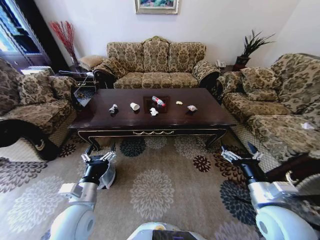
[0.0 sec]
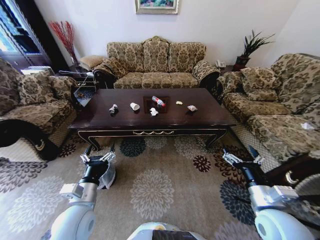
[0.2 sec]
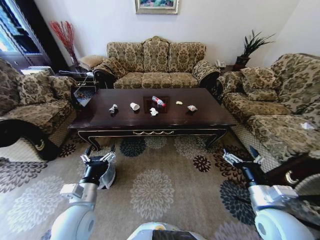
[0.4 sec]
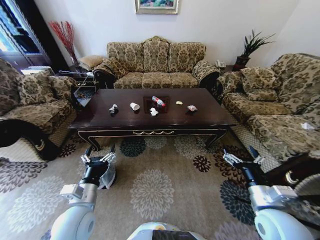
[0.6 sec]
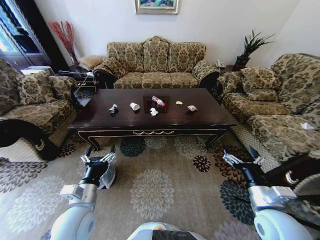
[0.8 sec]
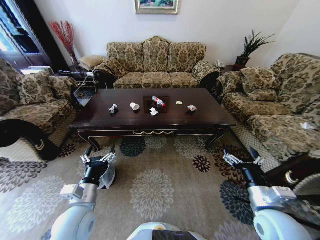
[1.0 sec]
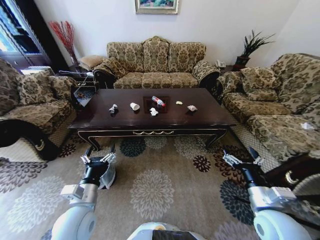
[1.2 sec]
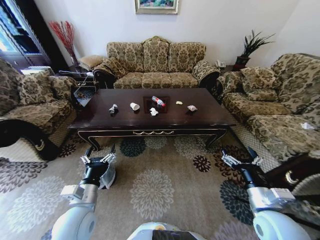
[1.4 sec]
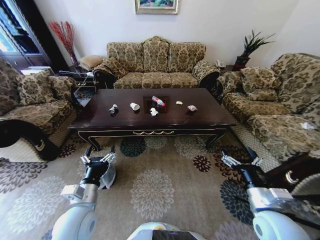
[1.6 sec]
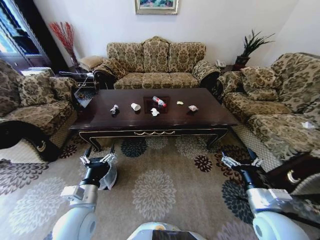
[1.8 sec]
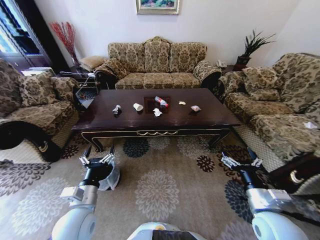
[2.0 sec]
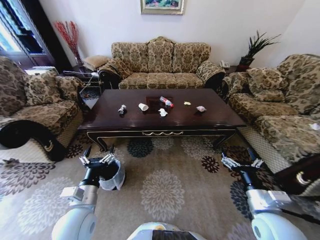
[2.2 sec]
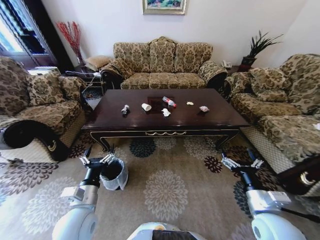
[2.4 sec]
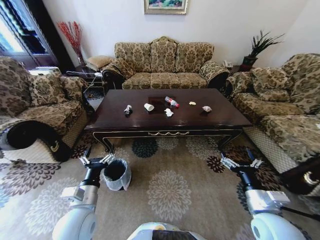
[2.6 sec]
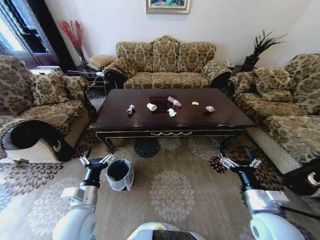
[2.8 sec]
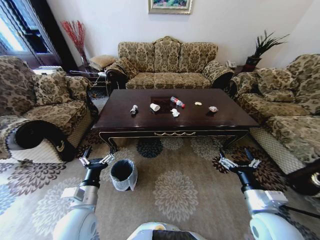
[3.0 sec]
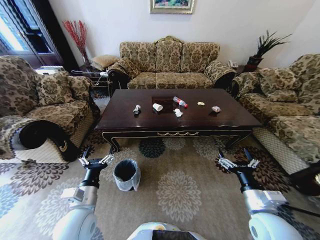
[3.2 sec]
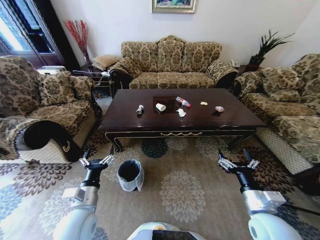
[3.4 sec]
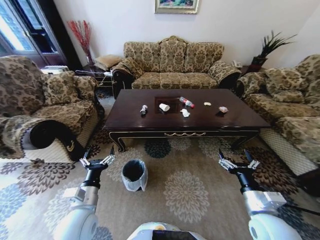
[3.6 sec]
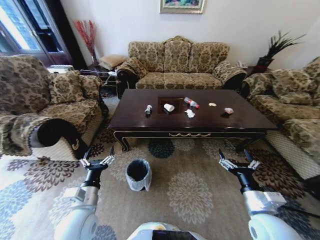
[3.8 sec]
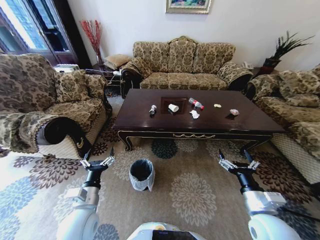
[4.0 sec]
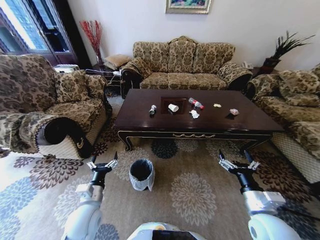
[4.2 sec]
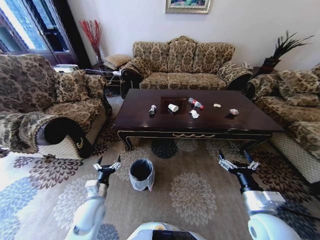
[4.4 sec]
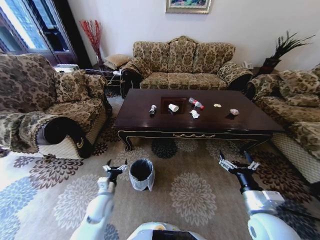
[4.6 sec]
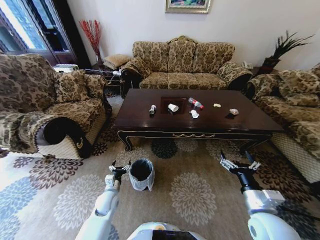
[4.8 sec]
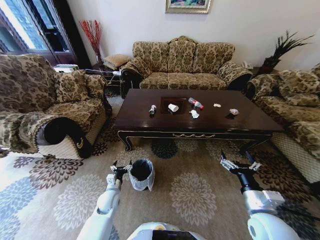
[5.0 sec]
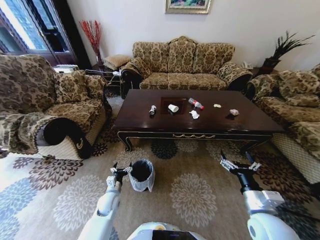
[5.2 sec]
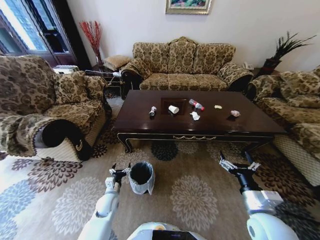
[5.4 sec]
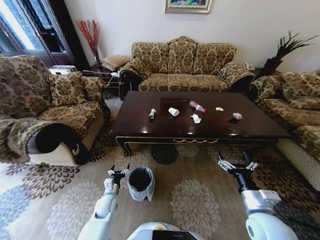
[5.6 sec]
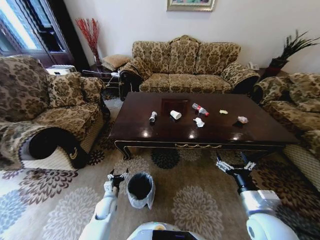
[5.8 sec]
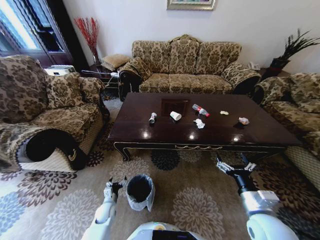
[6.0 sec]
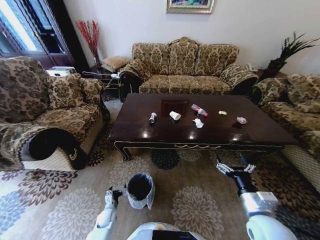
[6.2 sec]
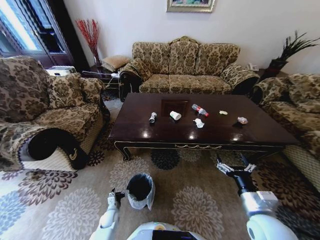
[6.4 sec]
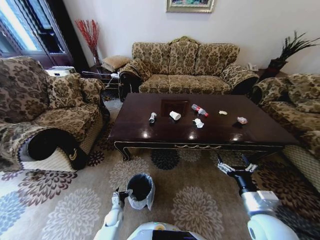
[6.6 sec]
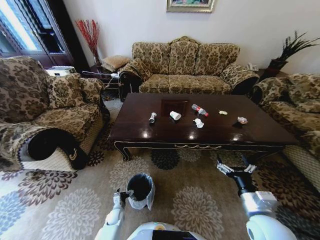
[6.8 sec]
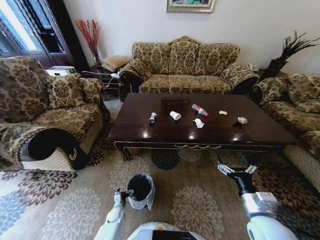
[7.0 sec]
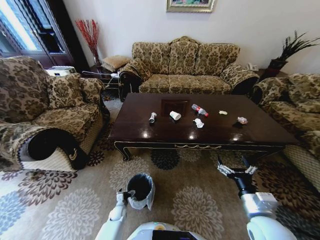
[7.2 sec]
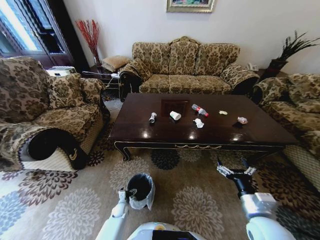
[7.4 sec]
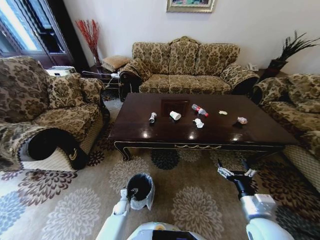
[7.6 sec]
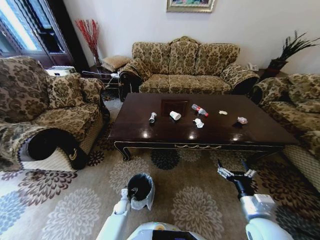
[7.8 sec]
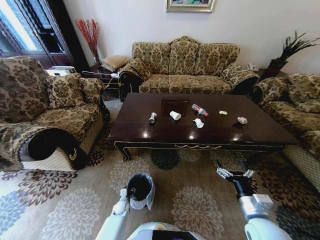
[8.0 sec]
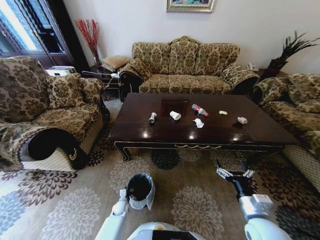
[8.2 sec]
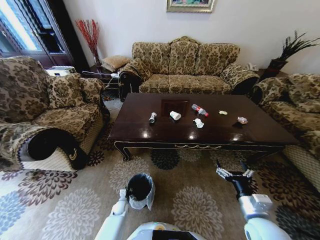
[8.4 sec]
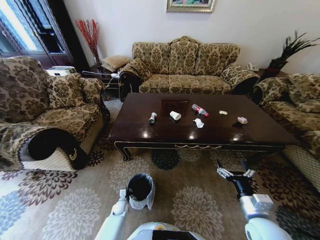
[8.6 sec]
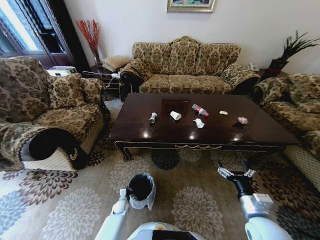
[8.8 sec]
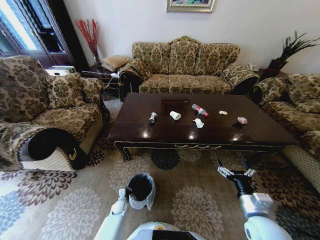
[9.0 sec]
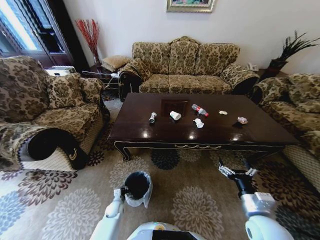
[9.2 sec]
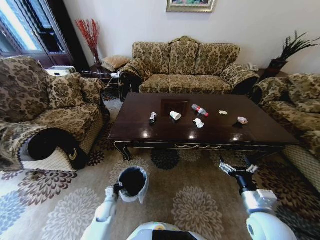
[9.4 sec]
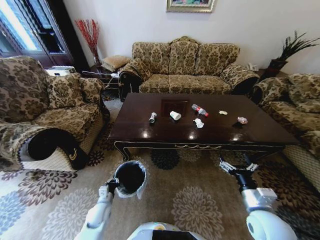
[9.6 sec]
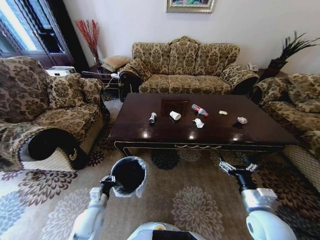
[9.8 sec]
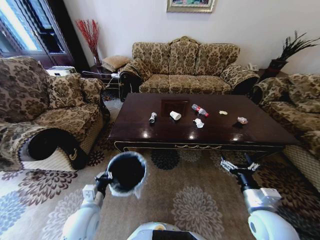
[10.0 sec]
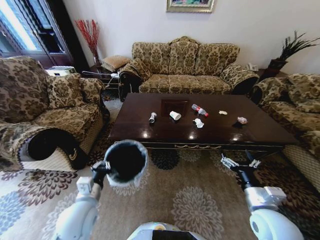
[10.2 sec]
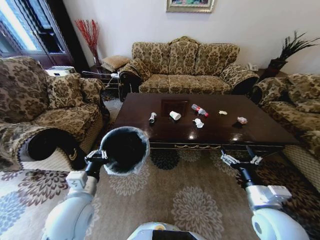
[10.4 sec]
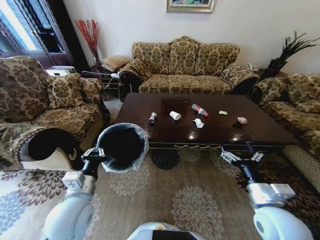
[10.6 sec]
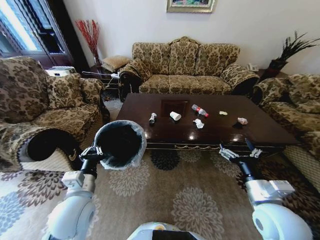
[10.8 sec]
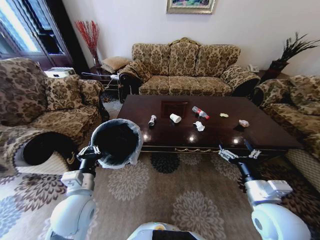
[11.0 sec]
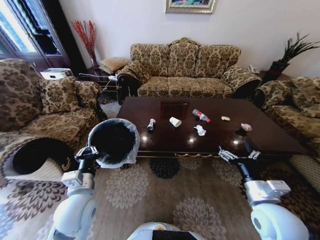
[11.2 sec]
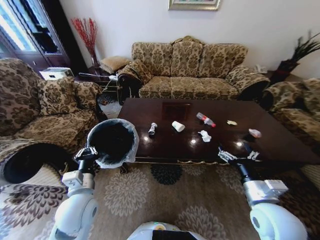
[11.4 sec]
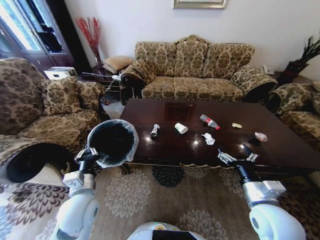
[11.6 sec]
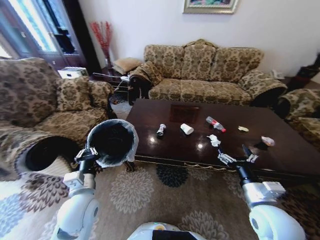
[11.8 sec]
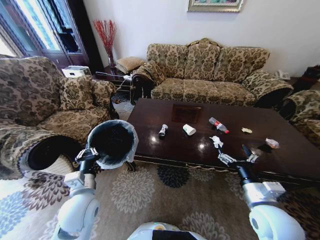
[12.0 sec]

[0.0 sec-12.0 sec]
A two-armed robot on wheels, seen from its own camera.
Task of the whole recording: Move to the front of the table and place the trash on the table into the trash bin.
3.0 sec to 4.4 sec: The left gripper moves downward, about 10 cm.
4.4 sec to 6.0 sec: The left gripper heads downward, covering some 20 cm.
6.0 sec to 7.6 sec: The left gripper heads downward and to the right, covering roughly 10 cm.
7.6 sec to 9.0 sec: The left gripper closes.
9.0 sec to 10.4 sec: The right gripper goes about 5 cm upward; the left gripper travels upward by roughly 40 cm.

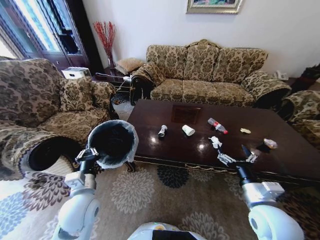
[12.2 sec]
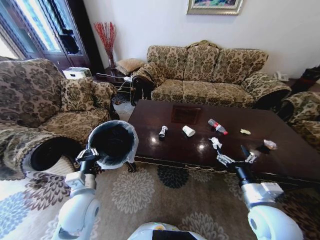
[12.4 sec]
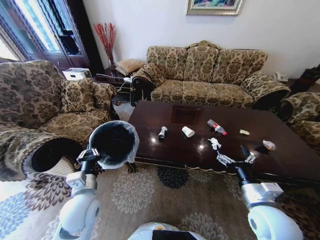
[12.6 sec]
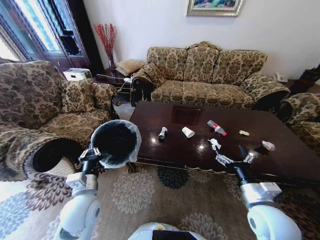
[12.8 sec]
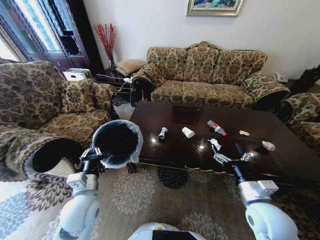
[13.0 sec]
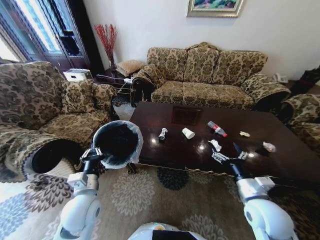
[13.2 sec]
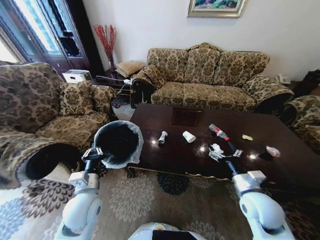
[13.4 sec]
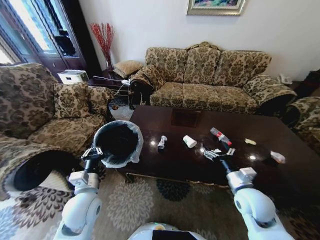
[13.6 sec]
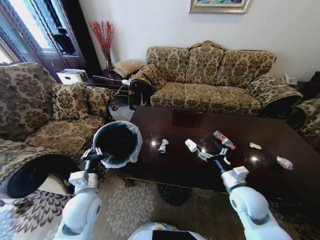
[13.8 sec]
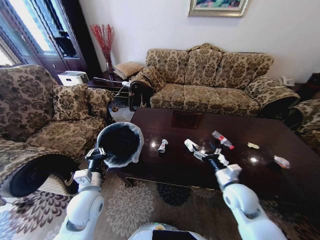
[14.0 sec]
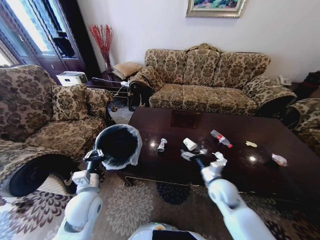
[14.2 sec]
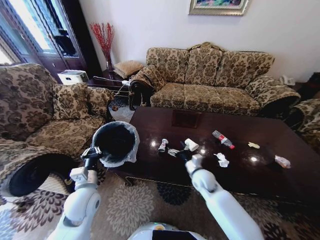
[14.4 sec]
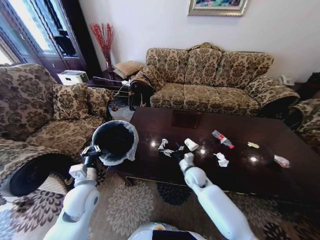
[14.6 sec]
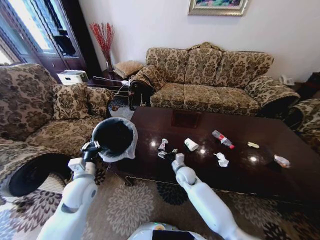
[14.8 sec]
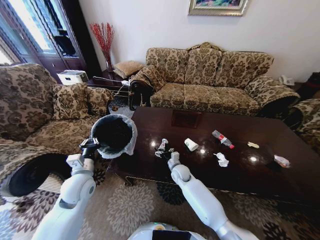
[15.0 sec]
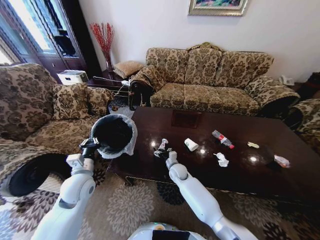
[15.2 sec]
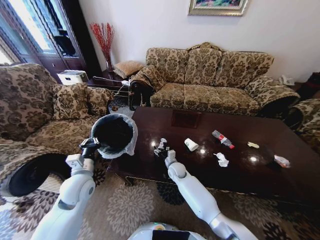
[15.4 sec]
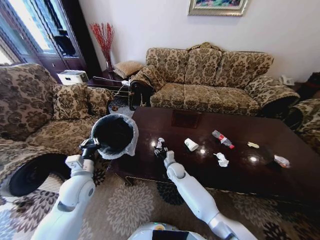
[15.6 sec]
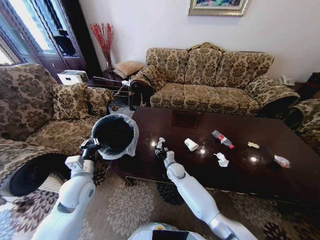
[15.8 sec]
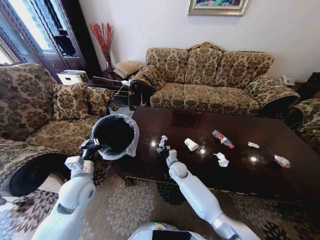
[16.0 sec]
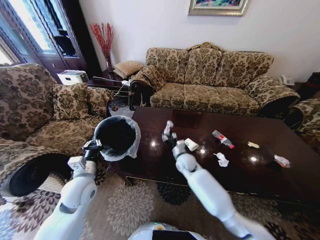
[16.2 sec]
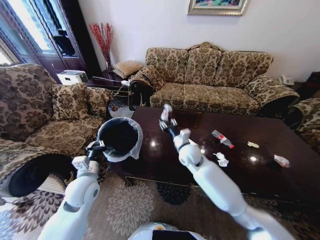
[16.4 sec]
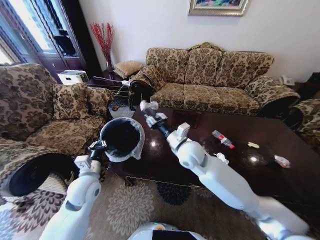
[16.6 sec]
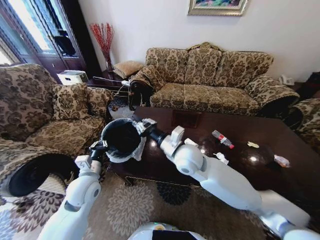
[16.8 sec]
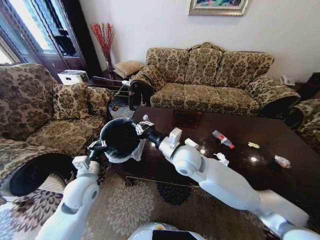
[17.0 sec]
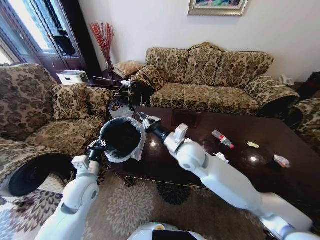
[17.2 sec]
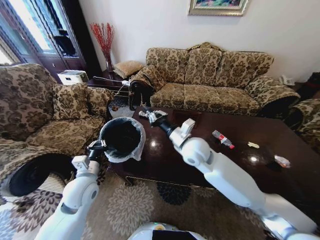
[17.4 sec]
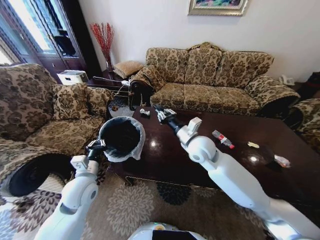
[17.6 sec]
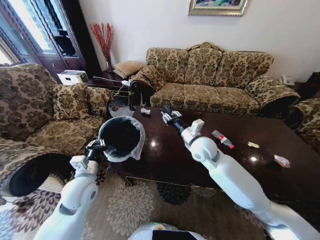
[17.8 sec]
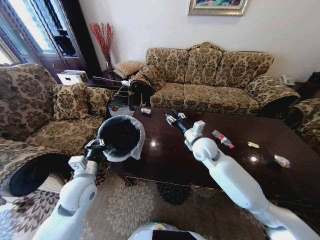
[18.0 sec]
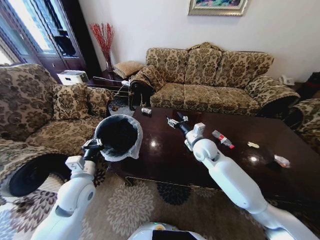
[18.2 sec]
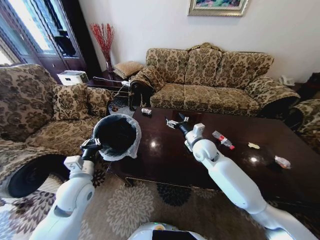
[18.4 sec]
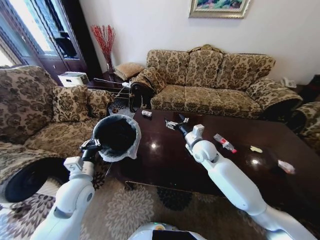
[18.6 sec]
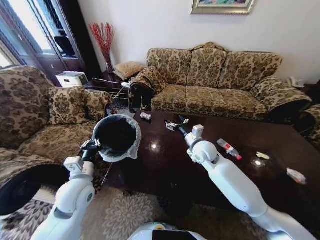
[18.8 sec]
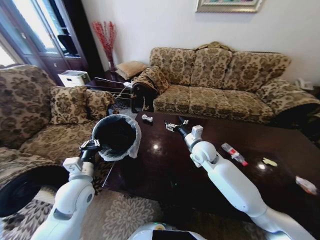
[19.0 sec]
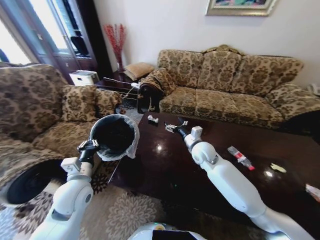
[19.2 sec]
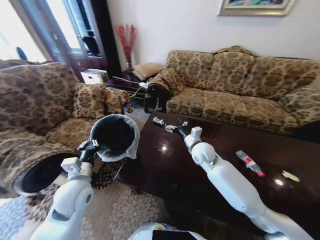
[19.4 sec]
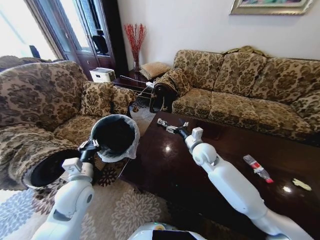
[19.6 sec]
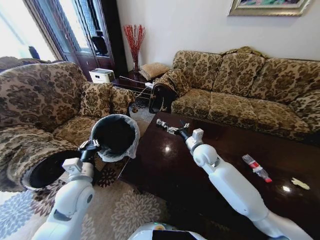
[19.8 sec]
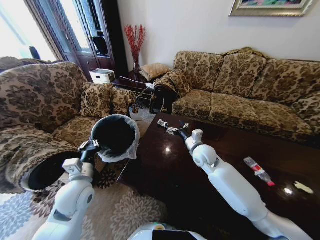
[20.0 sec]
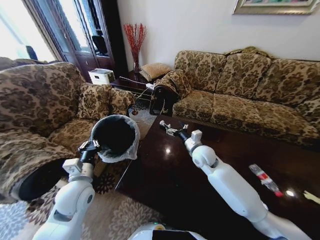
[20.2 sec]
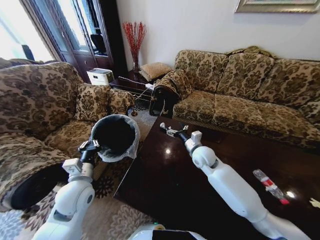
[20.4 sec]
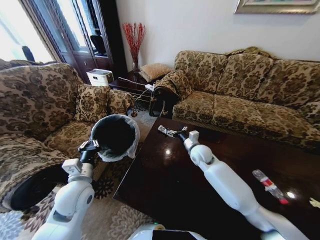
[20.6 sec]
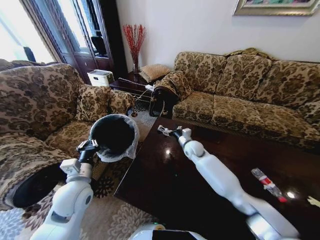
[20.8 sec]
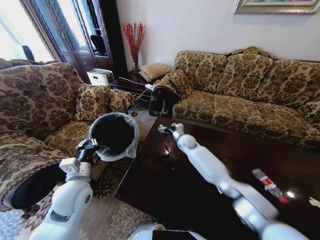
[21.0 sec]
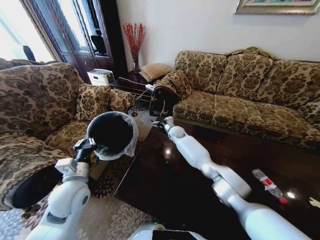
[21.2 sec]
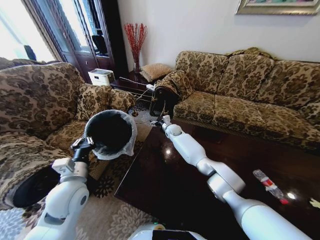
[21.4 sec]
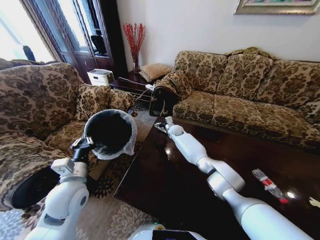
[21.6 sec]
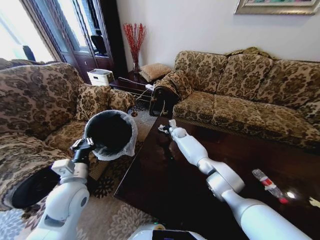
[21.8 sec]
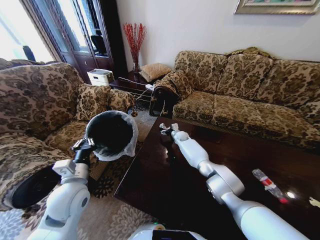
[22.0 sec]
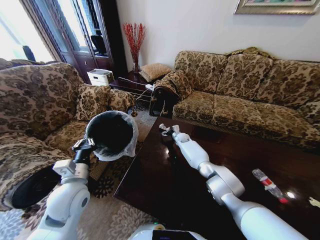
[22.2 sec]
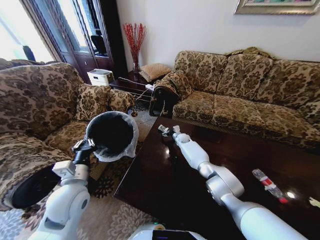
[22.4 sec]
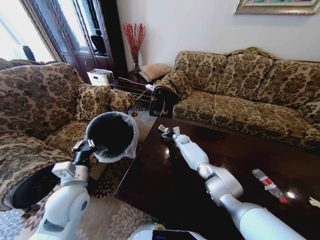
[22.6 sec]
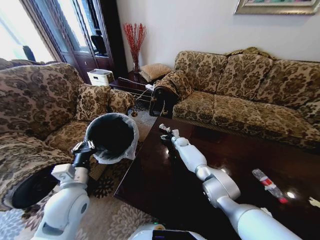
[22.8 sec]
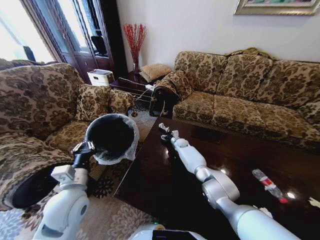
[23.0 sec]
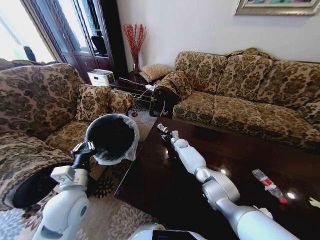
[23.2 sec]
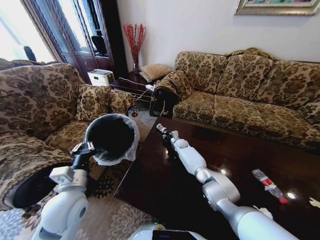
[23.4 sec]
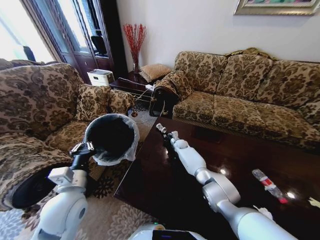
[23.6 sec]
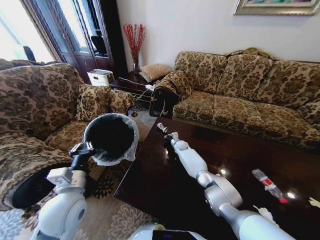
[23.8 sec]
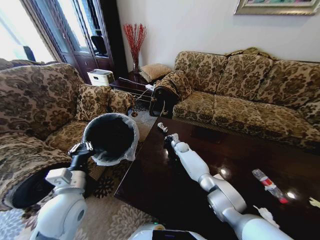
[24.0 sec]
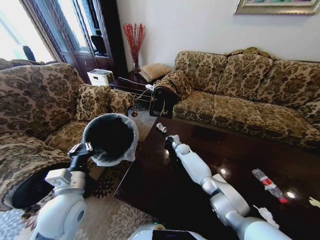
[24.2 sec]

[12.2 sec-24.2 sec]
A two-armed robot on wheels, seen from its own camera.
Task of the whole recording: Move to the front of the table and place the trash on the table into the trash bin.
12.2 sec to 13.8 sec: The right gripper is displaced forward by about 5 cm.
13.8 sec to 15.2 sec: The left gripper is displaced forward by about 5 cm. Meanwhile the right gripper goes about 30 cm to the left, forward and downward.
15.2 sec to 16.6 sec: The right gripper goes some 25 cm upward, and closes its fingers.
16.6 sec to 18.2 sec: The right gripper shifts approximately 10 cm to the right and forward, and closes, then reopens.
19.8 sec to 21.2 sec: The right gripper heads forward and to the left, covering approximately 20 cm.
21.2 sec to 22.6 sec: The right gripper travels downward and to the right by about 10 cm.
22.6 sec to 24.2 sec: The right gripper shifts some 5 cm backward, and closes its fingers.
